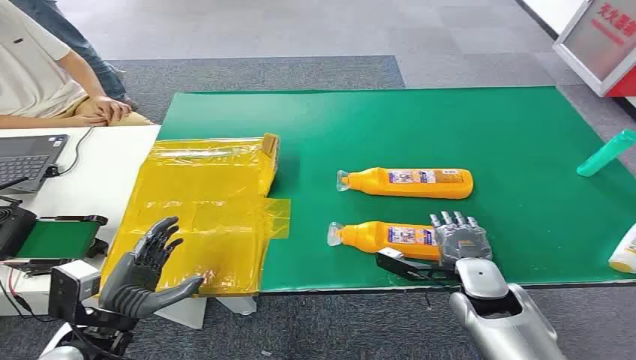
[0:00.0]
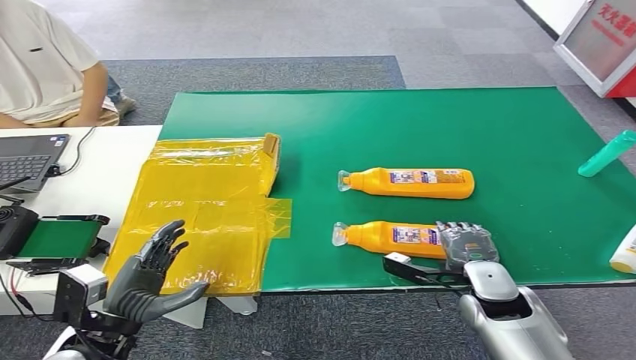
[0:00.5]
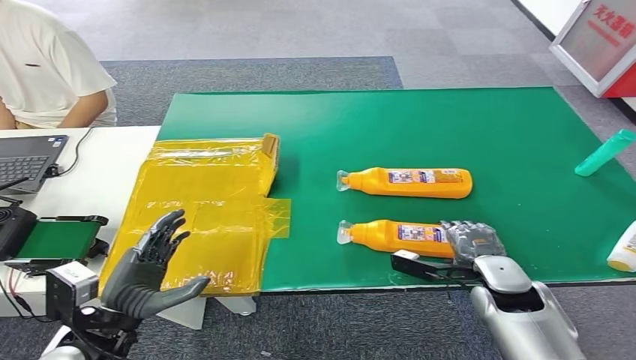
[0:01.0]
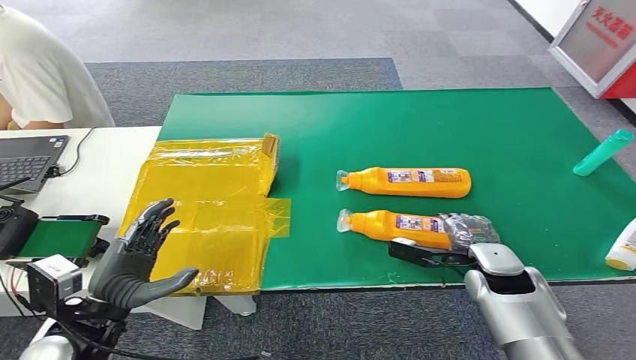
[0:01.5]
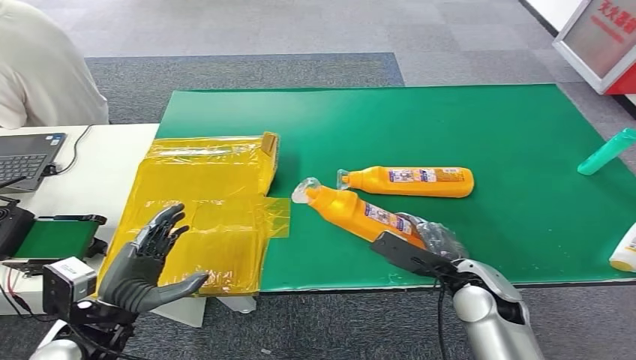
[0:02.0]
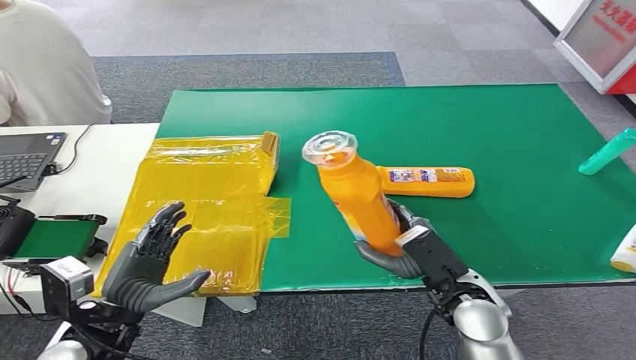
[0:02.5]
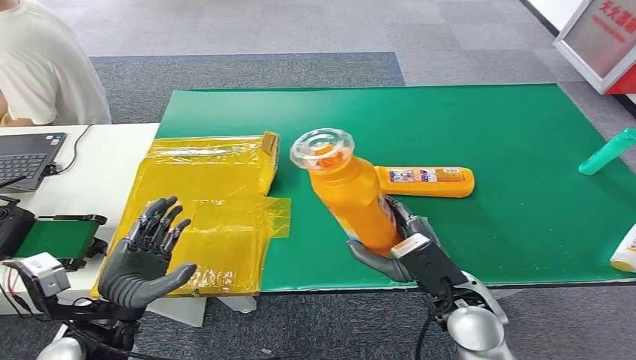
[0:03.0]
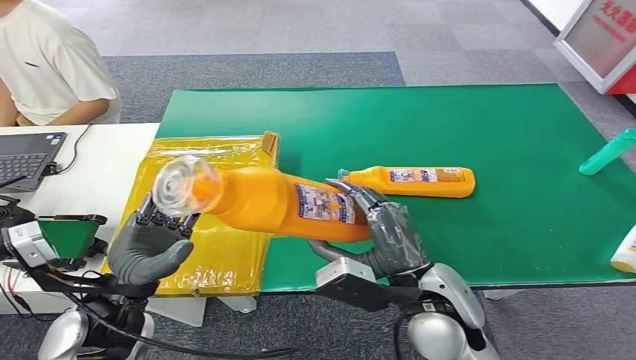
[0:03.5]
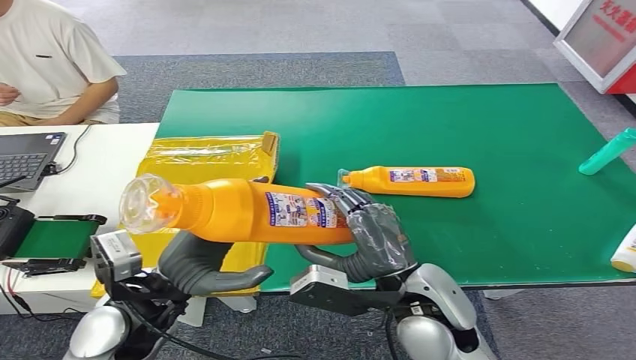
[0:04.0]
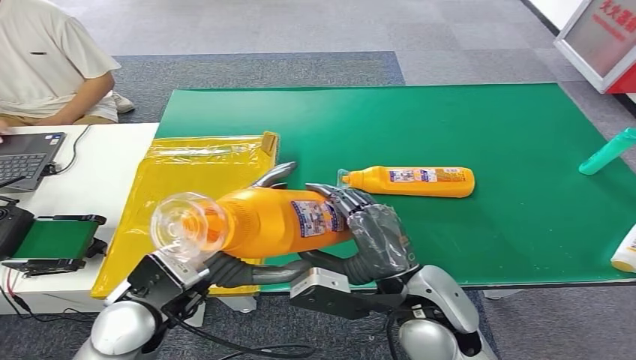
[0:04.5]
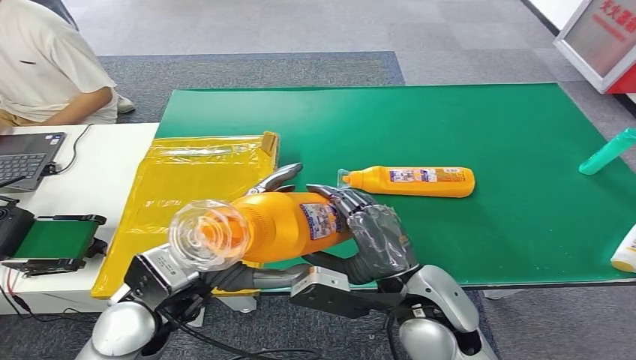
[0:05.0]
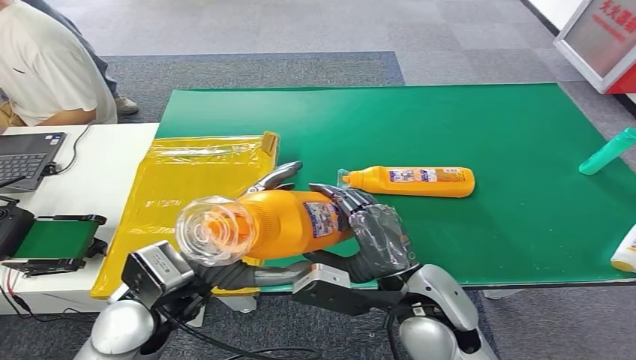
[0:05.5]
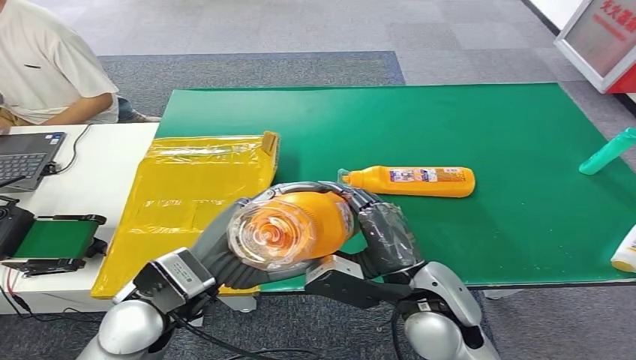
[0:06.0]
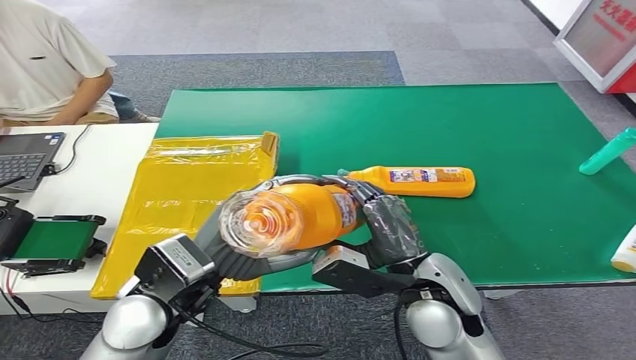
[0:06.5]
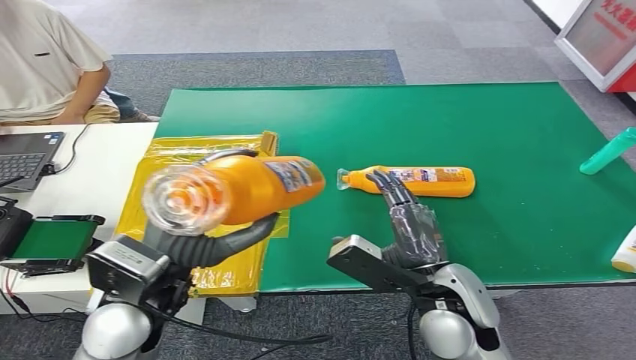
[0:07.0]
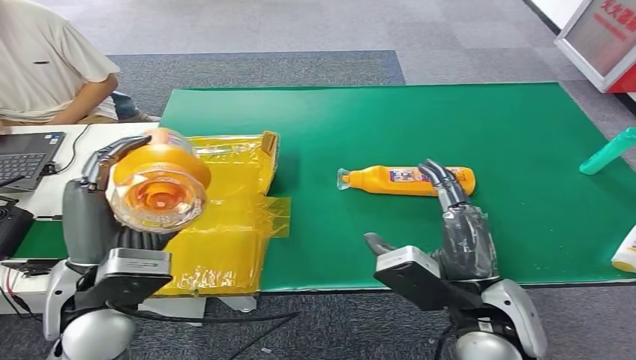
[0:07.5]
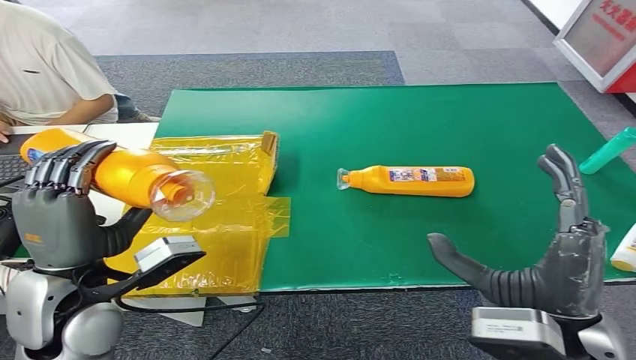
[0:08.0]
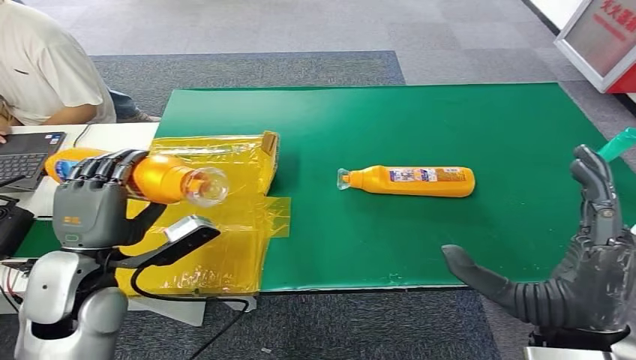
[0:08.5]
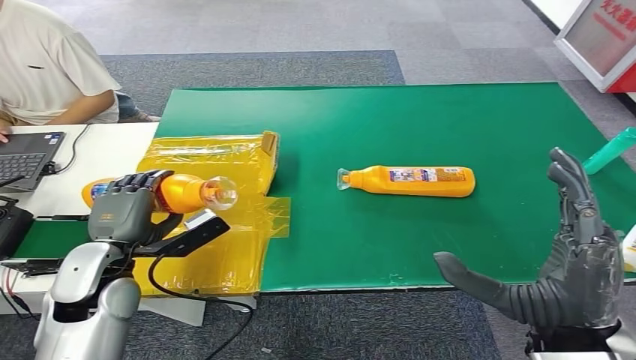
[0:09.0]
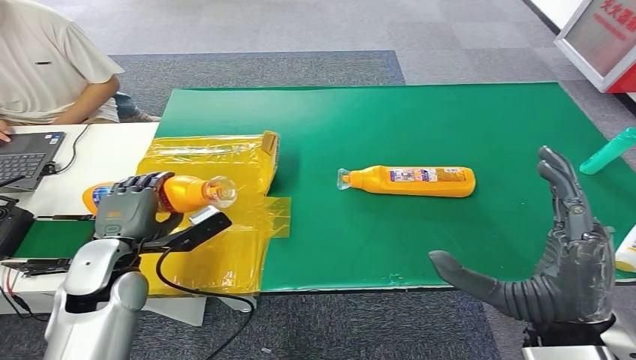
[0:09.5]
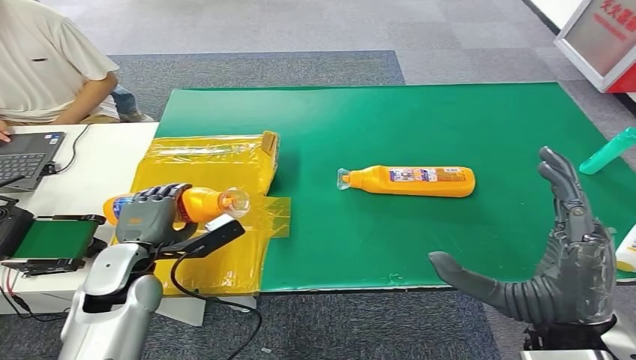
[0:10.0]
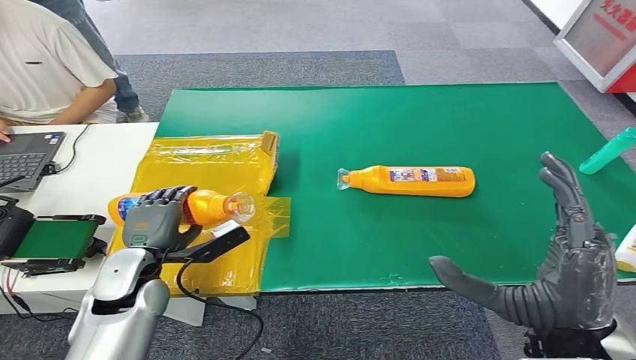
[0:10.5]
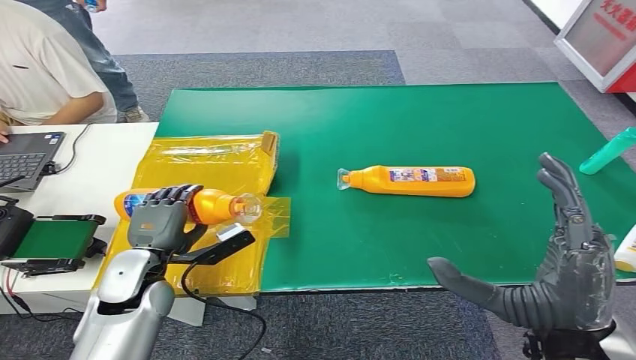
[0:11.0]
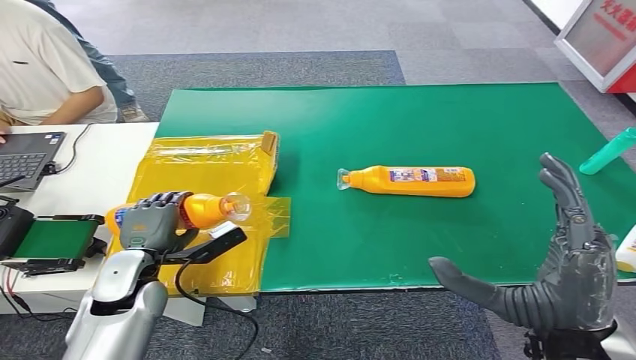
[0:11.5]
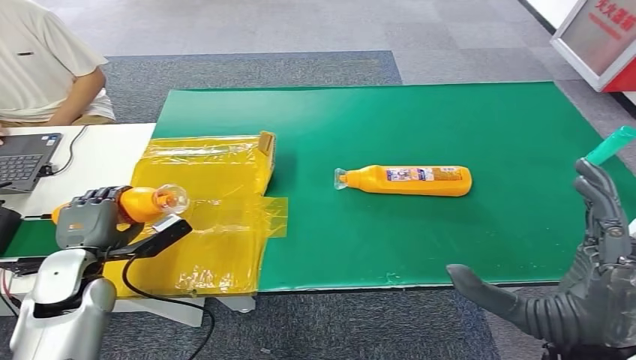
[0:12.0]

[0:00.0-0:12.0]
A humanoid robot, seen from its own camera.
Step, 0:00.0 to 0:02.5: Pick up the bottle from the table.
0:04.0 to 0:06.0: The left hand ends up about 5 cm from where it was.

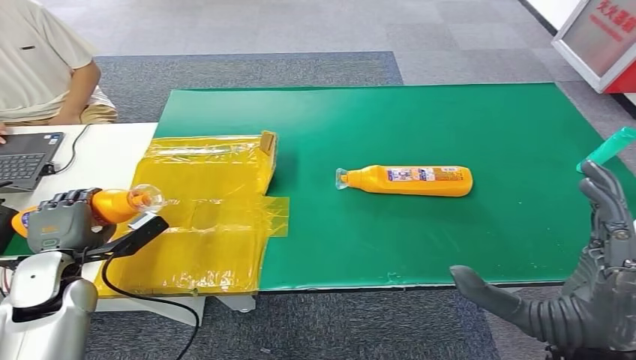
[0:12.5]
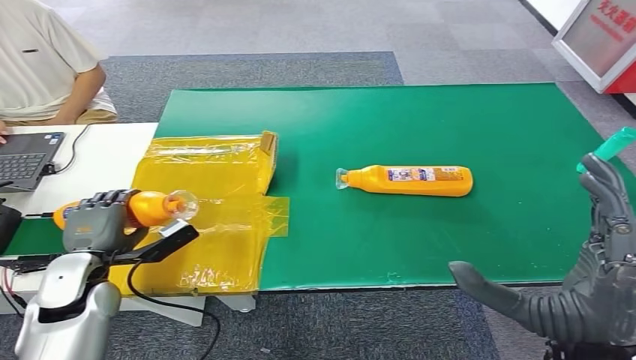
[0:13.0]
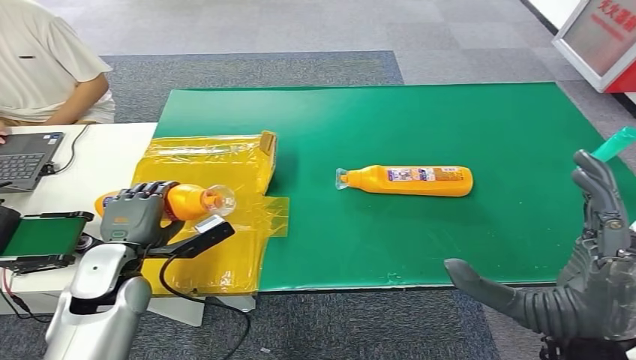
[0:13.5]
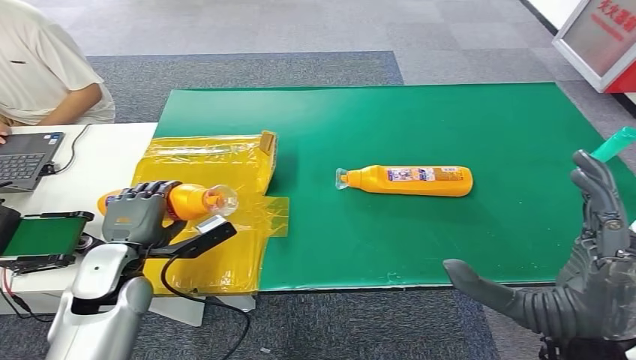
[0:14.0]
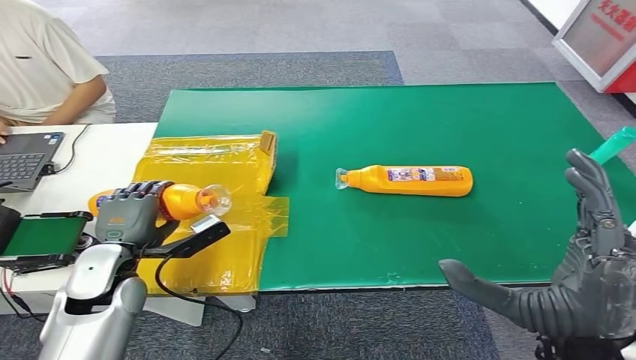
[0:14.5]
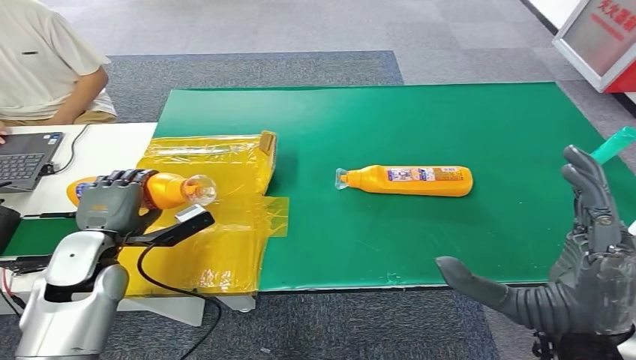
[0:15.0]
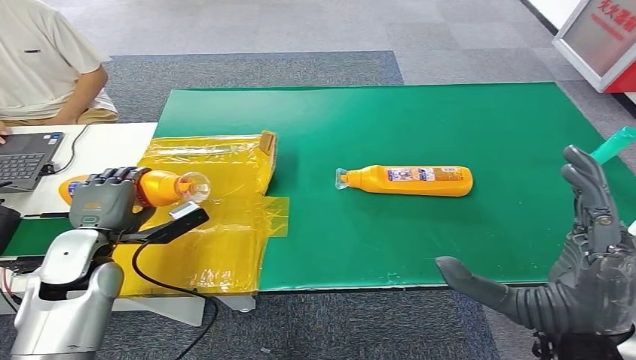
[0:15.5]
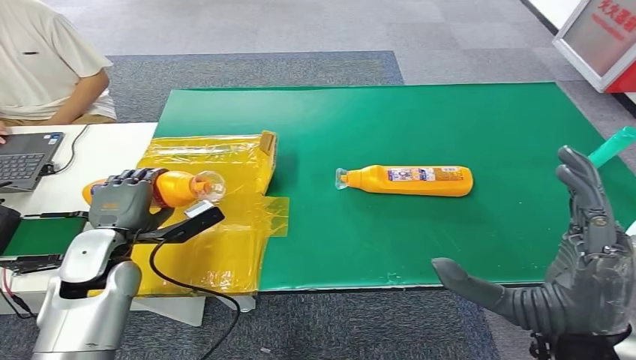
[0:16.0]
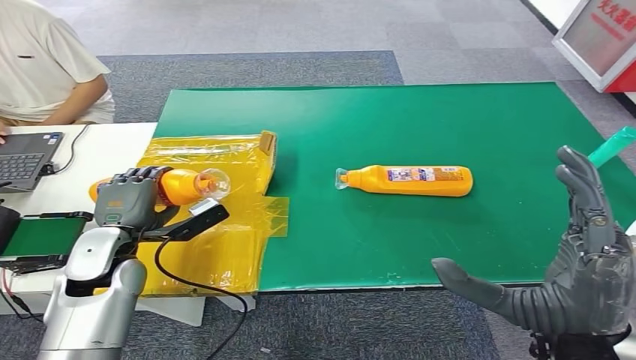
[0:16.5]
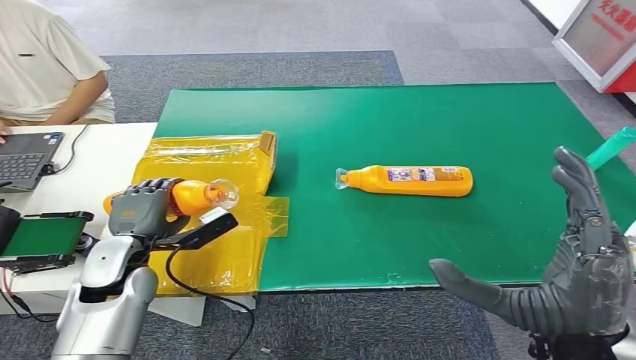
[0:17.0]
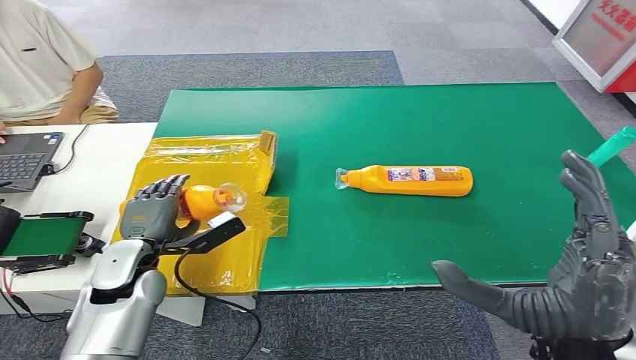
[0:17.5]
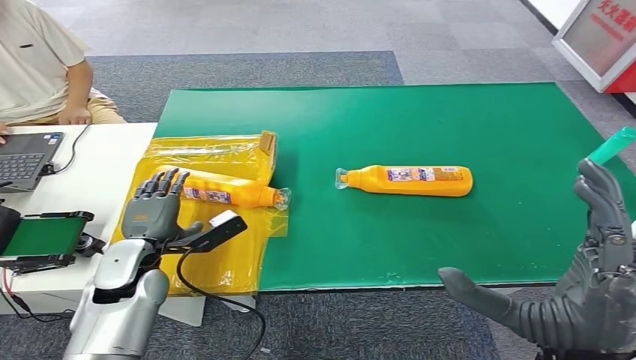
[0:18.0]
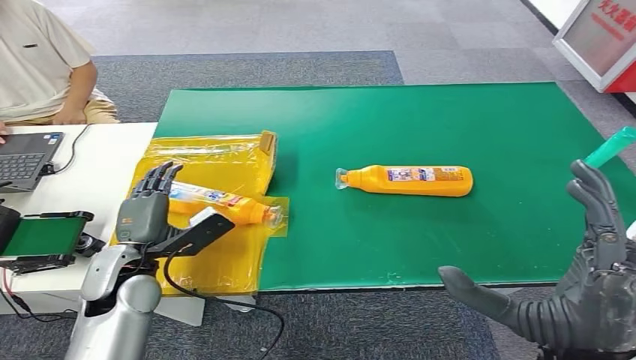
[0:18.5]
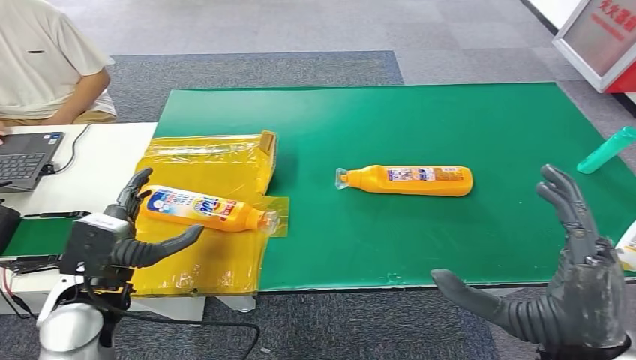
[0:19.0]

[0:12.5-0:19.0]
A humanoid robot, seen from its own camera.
Step, 0:12.5 to 0:19.0: Turn the bottle to the front side.
0:12.5 to 0:14.5: The left hand goes about 10 cm to the right.
0:14.5 to 0:17.0: The hands stay close to where they were, moving slightly.
0:17.0 to 0:19.0: The left hand shifts approximately 5 cm backward.
